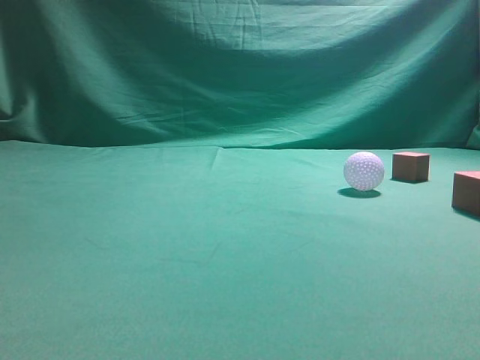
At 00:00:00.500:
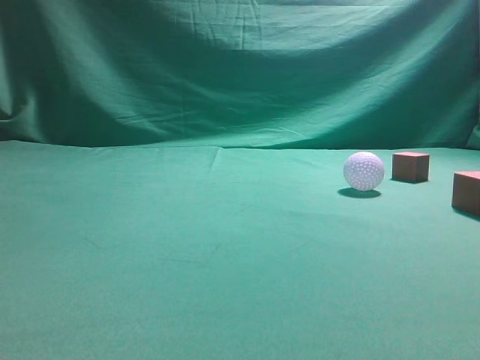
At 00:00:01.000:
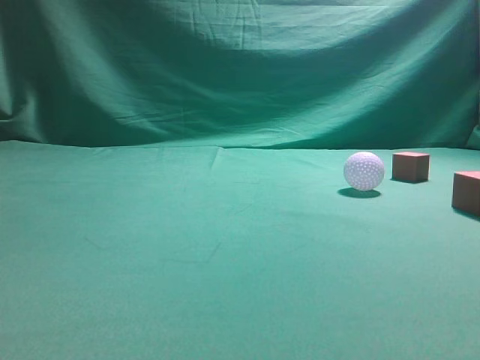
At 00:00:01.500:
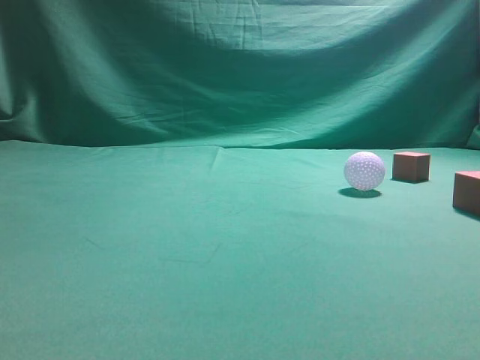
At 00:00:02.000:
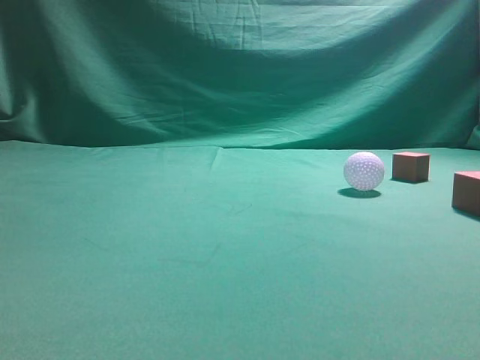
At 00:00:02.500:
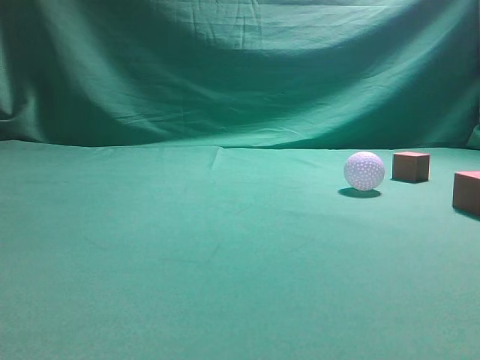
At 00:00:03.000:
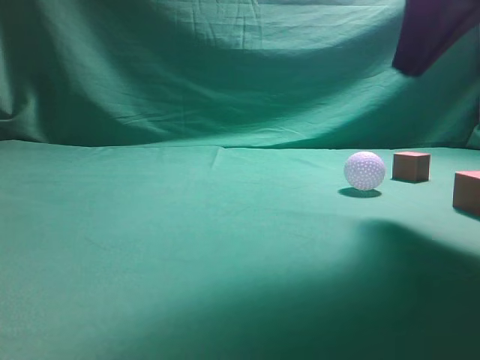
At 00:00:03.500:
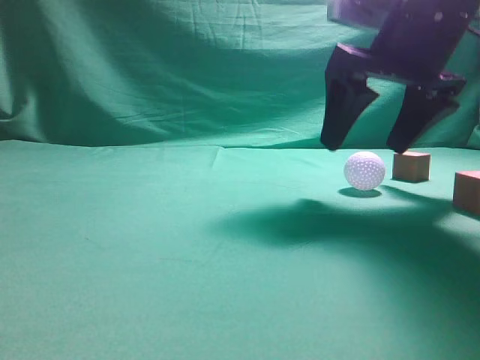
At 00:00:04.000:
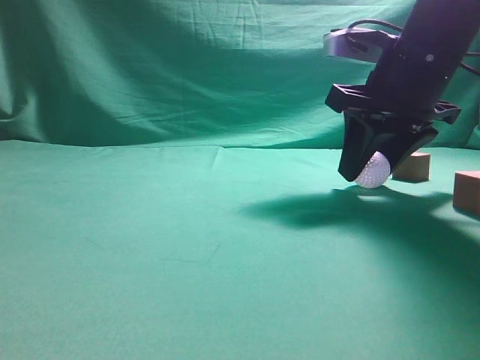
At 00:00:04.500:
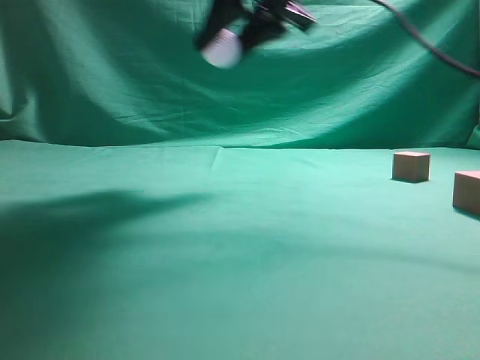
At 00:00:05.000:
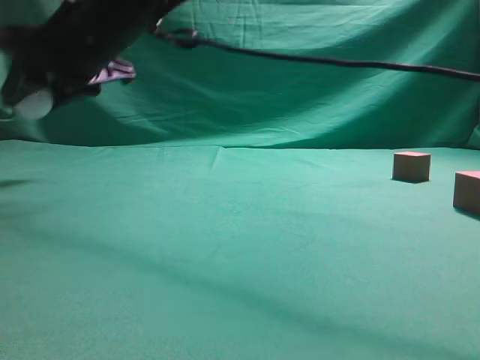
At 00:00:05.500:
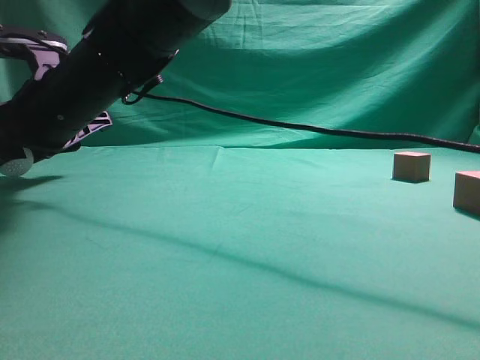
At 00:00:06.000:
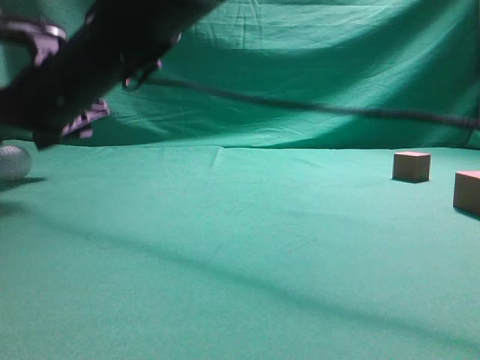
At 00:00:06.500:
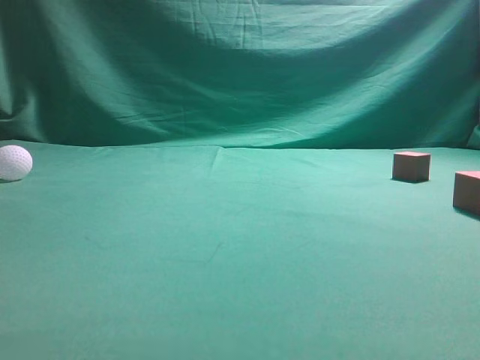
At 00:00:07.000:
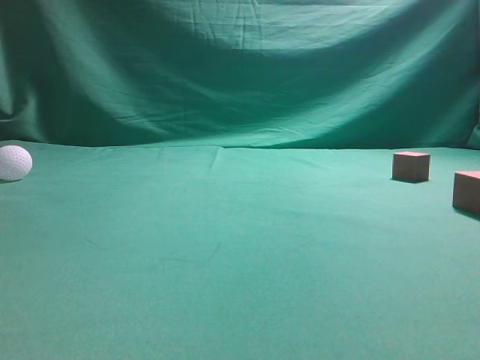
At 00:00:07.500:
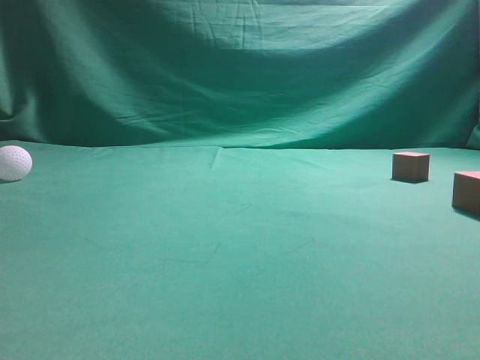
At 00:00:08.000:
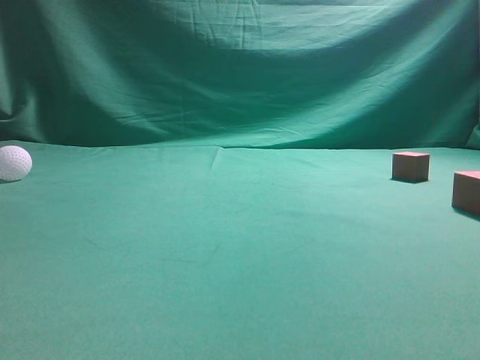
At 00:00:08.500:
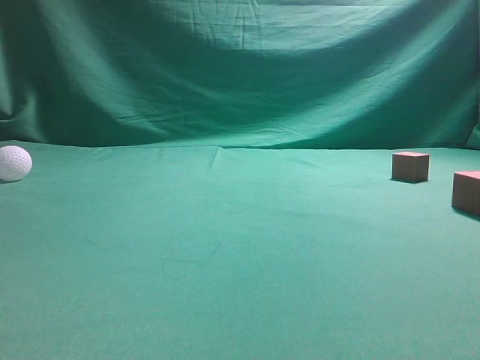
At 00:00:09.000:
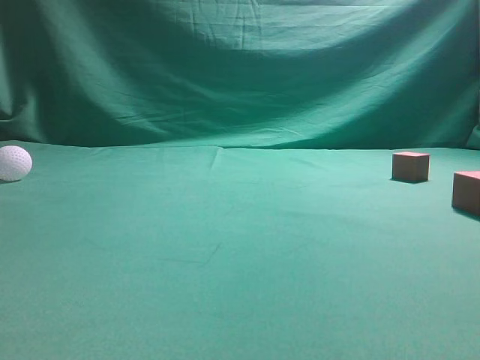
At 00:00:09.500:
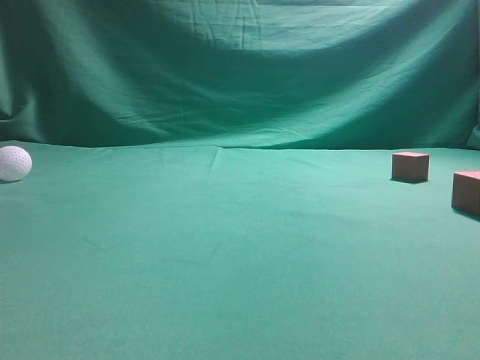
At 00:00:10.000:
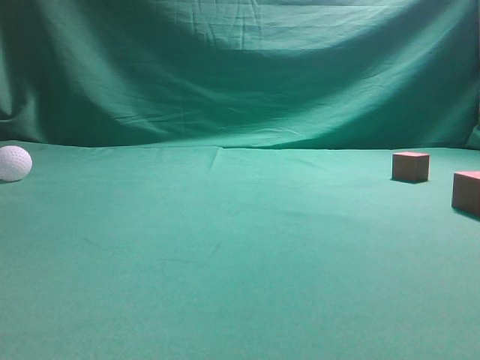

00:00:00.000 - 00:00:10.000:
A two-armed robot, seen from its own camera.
Step, 00:00:00.000 - 00:00:04.000: Grasp the spherical object on the right side.
00:00:02.000 - 00:00:04.000: The right gripper heads forward, downward and to the left, covering roughly 35 cm, and opens up.
00:00:04.000 - 00:00:06.000: The right gripper goes roughly 35 cm to the left.
00:00:06.000 - 00:00:08.000: The right gripper shifts some 50 cm to the right, backward and upward, and closes up.
